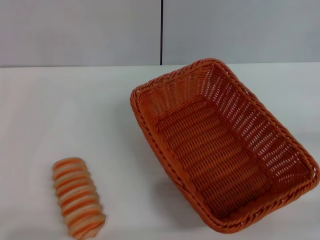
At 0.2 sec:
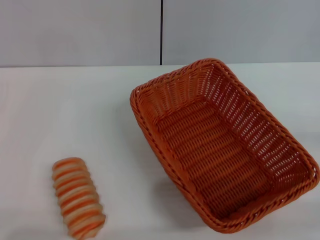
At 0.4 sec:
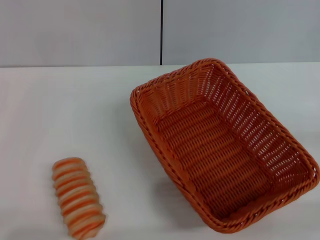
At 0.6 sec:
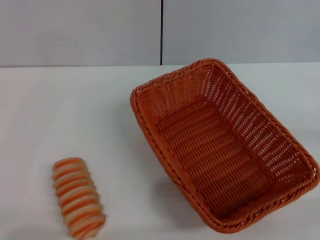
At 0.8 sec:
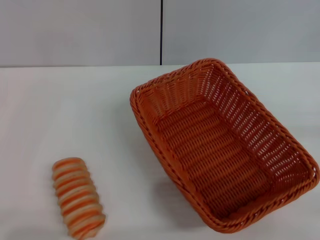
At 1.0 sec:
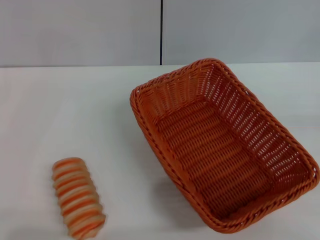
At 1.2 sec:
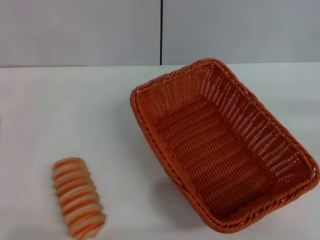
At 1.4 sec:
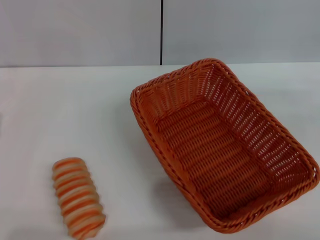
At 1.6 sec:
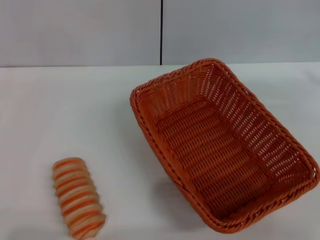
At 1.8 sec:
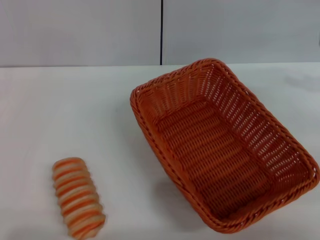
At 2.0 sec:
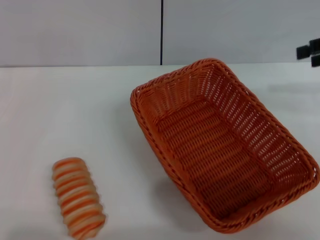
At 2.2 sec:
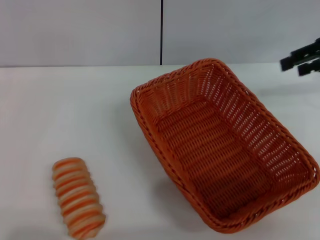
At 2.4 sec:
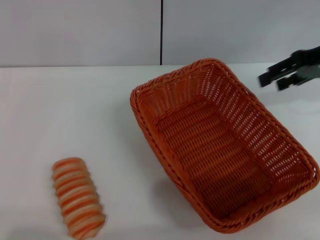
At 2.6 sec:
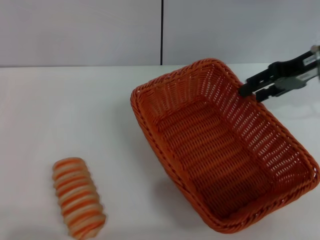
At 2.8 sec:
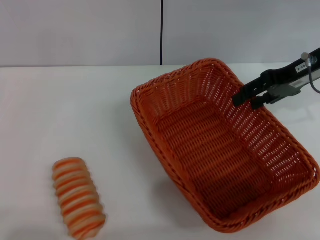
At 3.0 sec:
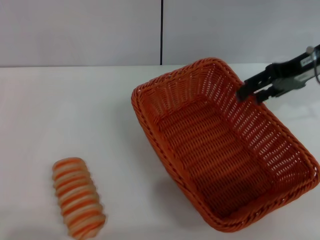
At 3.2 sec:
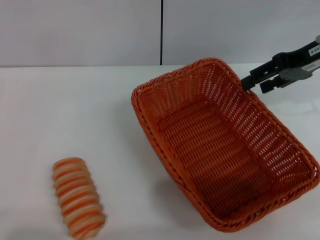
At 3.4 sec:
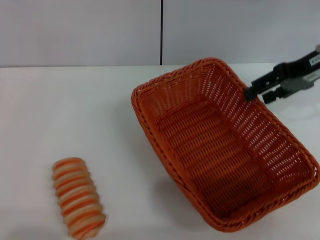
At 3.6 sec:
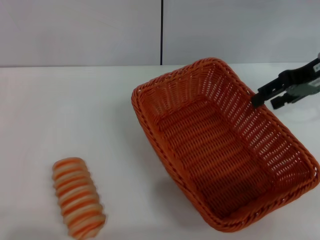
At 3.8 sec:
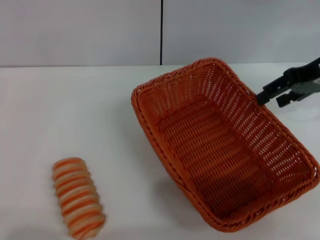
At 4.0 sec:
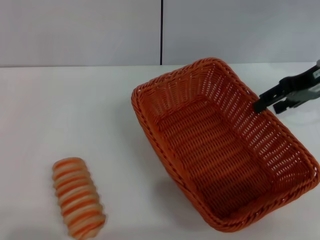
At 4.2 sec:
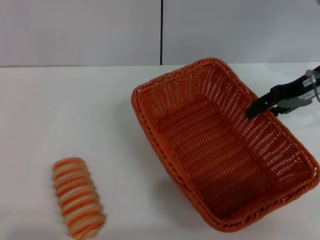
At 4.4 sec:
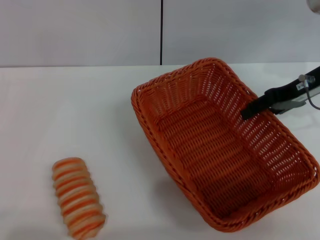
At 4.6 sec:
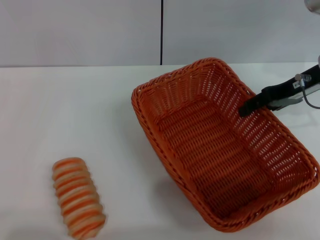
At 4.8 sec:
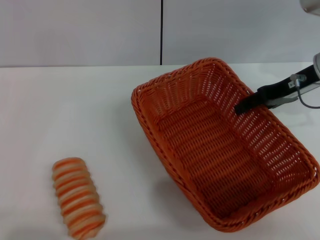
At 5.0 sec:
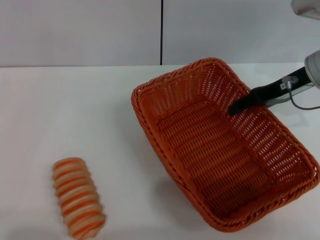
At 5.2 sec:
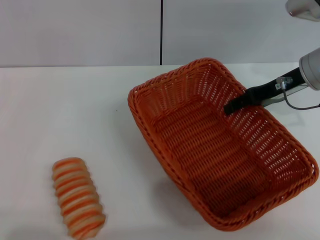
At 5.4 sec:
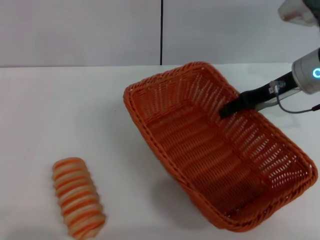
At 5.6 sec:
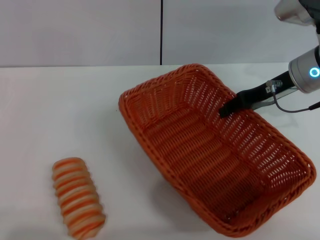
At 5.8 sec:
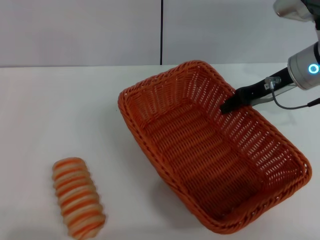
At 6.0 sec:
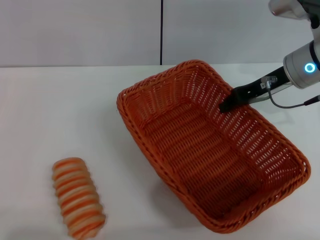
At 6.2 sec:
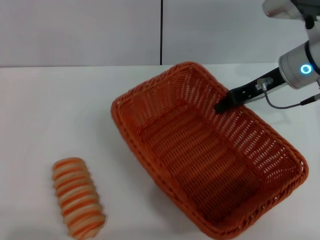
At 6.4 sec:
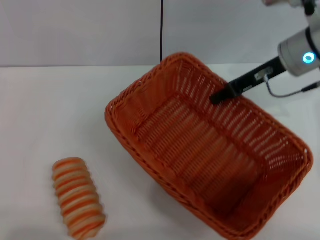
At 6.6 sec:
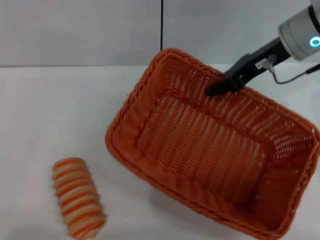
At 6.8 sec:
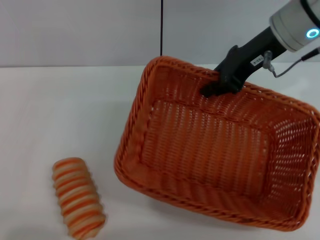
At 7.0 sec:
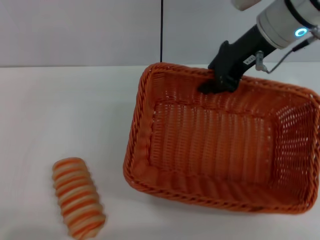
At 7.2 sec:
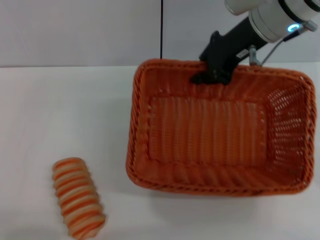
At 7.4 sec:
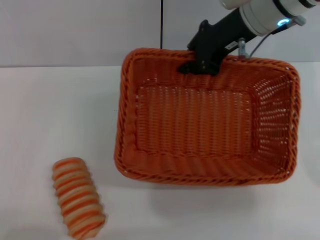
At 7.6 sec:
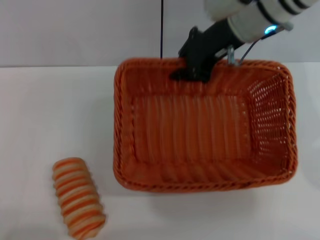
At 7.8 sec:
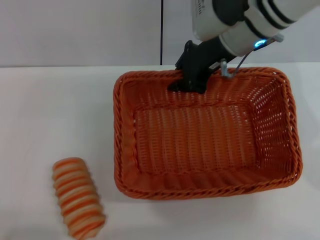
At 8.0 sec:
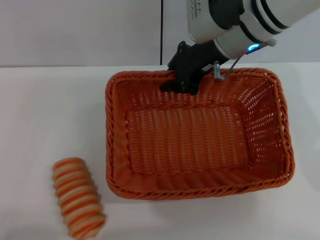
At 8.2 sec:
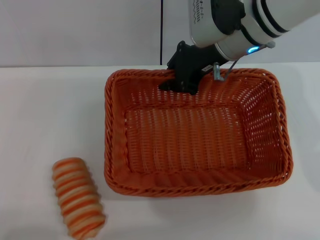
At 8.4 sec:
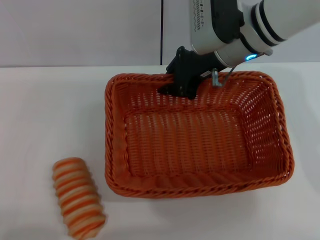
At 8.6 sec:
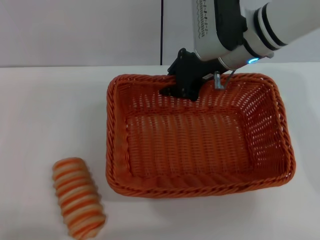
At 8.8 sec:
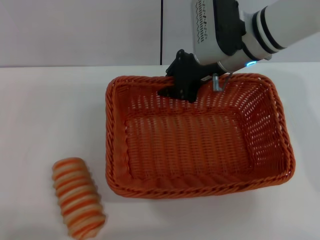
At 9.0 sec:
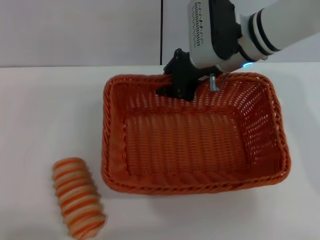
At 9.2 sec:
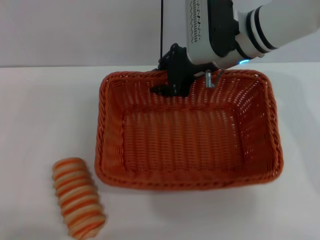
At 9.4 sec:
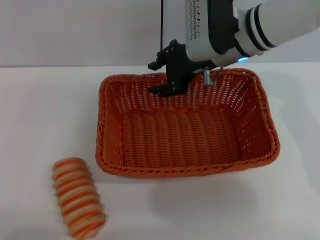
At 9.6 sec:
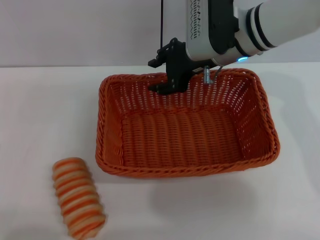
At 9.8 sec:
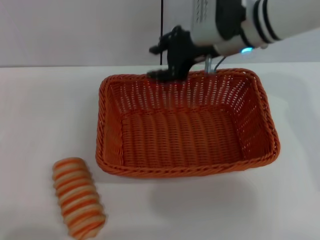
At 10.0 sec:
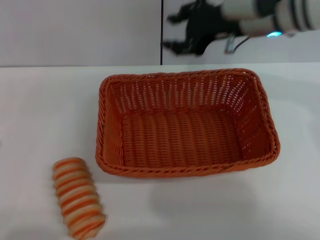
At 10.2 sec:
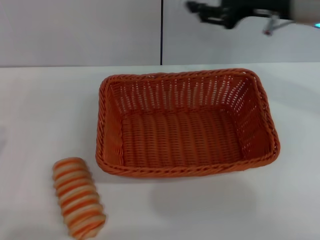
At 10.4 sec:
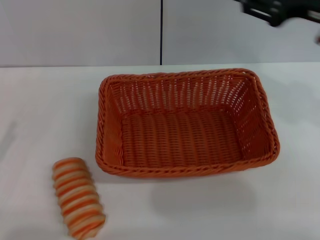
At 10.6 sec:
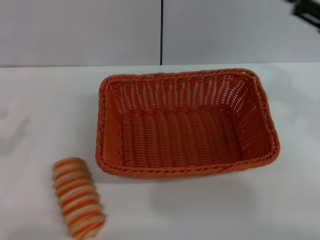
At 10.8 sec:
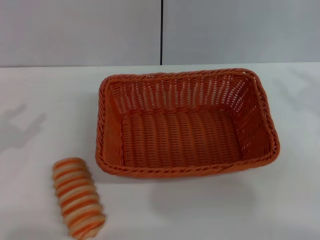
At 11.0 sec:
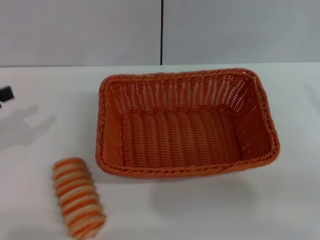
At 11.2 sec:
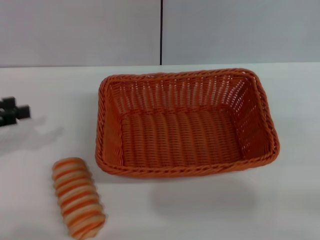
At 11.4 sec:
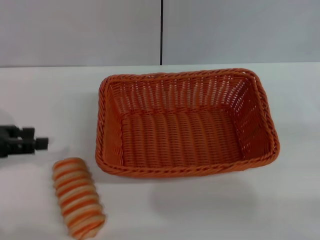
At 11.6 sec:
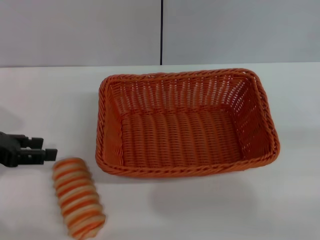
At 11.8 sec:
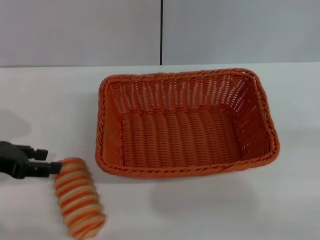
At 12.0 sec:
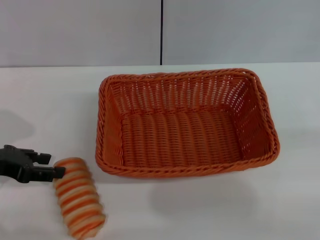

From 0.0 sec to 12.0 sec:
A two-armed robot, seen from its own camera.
Step, from 0.0 sec to 6.4 sec: Pick up the light basket with the right gripper.
Step, from 6.8 sec to 9.6 sec: Place the light basket in the center of view with the right gripper.
From 1.6 sec to 3.0 sec: The right gripper goes roughly 15 cm to the left and forward.
From 3.0 sec to 4.4 sec: The grippers make only small movements.
From 4.4 sec to 6.0 sec: The right gripper closes up.
From 6.0 sec to 7.6 sec: The right gripper travels to the left and upward by roughly 10 cm; the left gripper goes some 10 cm backward.
From 7.6 sec to 9.0 sec: The right gripper travels downward by about 5 cm.
From 9.0 sec to 10.4 sec: The left gripper goes about 5 cm to the left. Meanwhile the right gripper travels to the right, backward and upward by some 20 cm, and opens up.
From 10.4 sec to 12.0 sec: The left gripper heads forward and to the right, covering roughly 10 cm. The right gripper heads to the right and backward, covering roughly 25 cm.

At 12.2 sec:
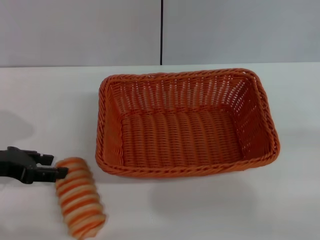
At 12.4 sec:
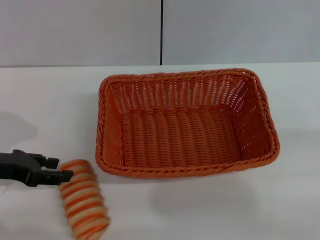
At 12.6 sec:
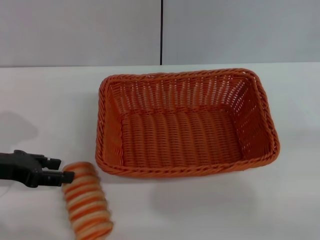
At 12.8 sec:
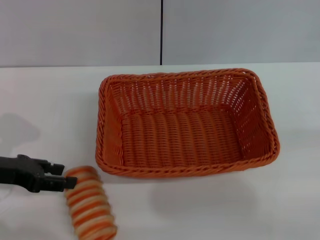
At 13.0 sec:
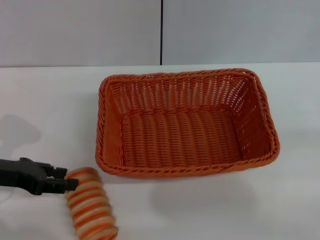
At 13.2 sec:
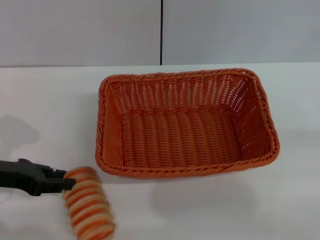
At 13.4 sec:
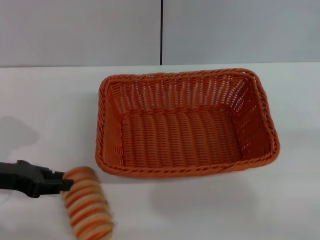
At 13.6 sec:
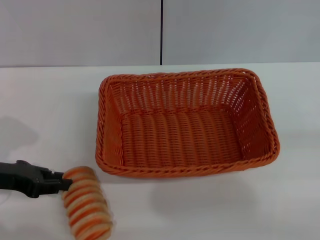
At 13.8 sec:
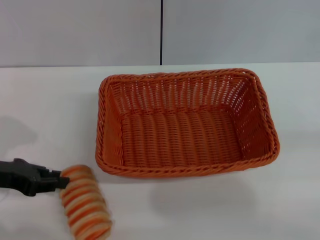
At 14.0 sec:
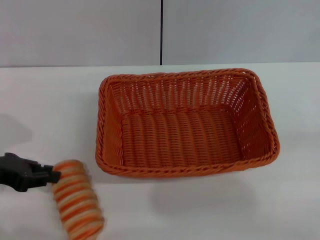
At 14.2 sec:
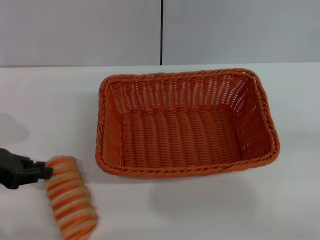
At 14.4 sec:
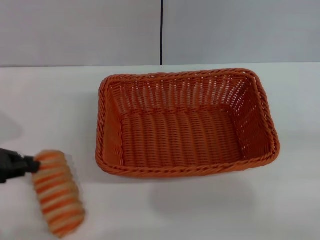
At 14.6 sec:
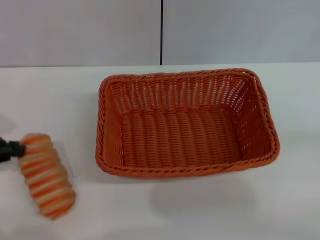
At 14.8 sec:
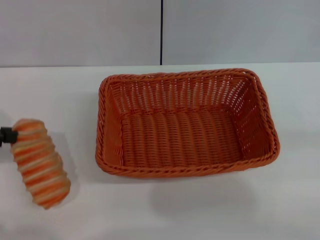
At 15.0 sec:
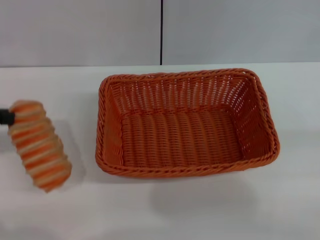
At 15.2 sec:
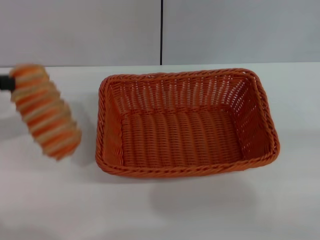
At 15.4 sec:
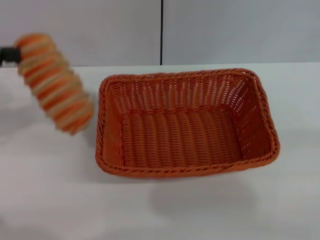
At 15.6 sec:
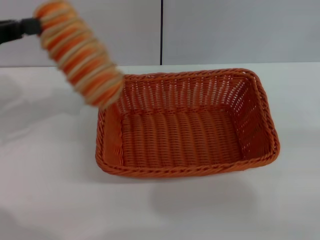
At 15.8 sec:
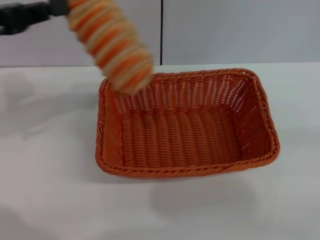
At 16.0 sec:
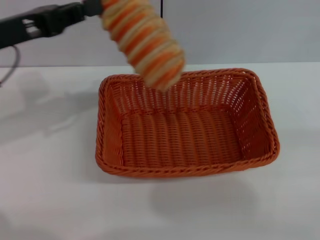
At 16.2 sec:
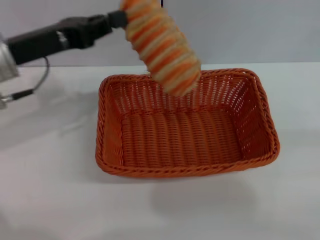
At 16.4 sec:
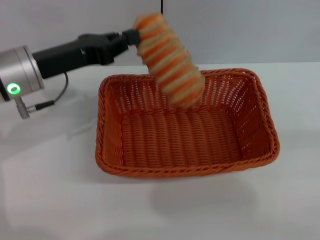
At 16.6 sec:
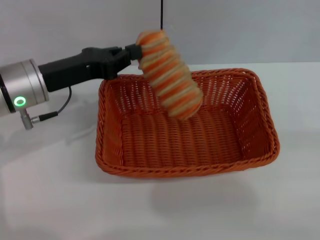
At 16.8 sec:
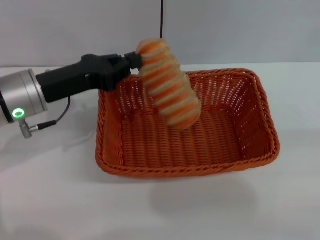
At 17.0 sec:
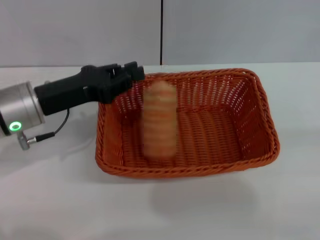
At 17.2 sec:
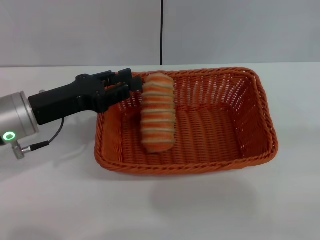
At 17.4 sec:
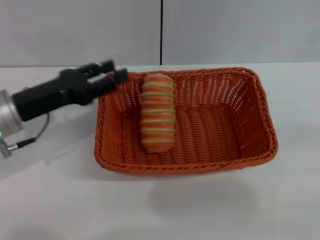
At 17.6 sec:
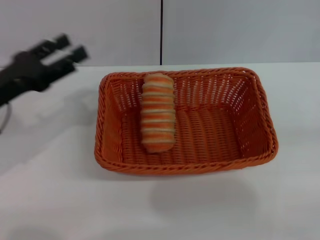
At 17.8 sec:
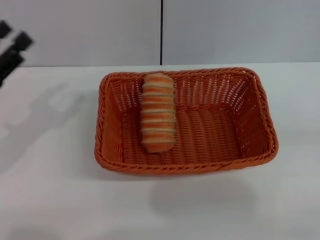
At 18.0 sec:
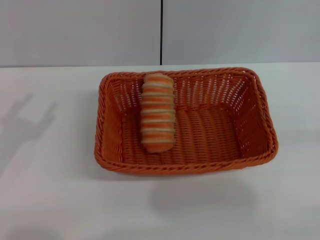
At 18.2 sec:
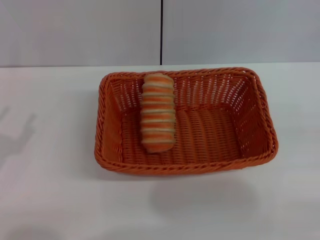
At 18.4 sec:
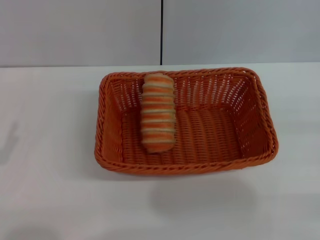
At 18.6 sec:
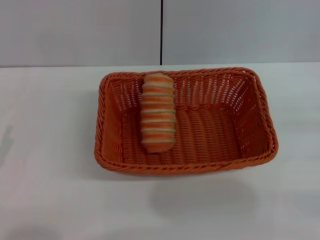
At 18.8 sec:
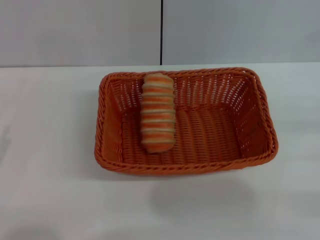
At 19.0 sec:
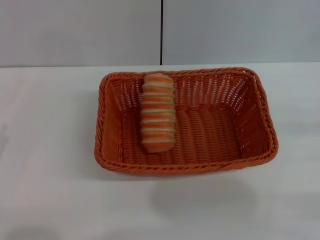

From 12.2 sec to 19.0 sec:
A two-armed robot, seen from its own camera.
Step, from 12.2 sec to 14.8 sec: Pick up the long bread with the left gripper.
Step, from 15.0 sec to 17.4 sec: Place the long bread into the light basket with the left gripper.
From 12.2 sec to 13.6 sec: The left gripper closes up.
From 13.6 sec to 15.0 sec: The left gripper travels upward and to the left by some 10 cm, and closes up.
From 15.0 sec to 16.2 sec: The left gripper travels to the right and forward by about 15 cm.
From 16.2 sec to 17.6 sec: The left gripper goes approximately 5 cm downward, and opens its fingers.
From 17.6 sec to 19.0 sec: The left gripper travels backward, to the left and downward by about 15 cm.
